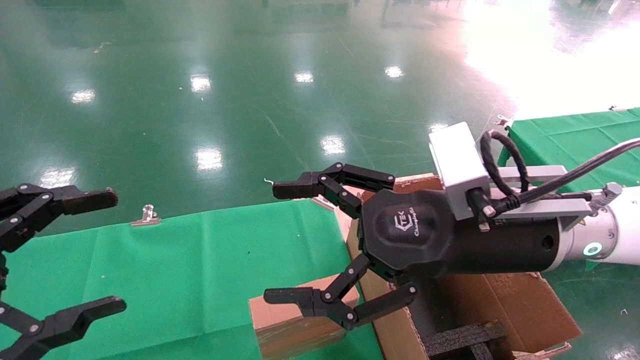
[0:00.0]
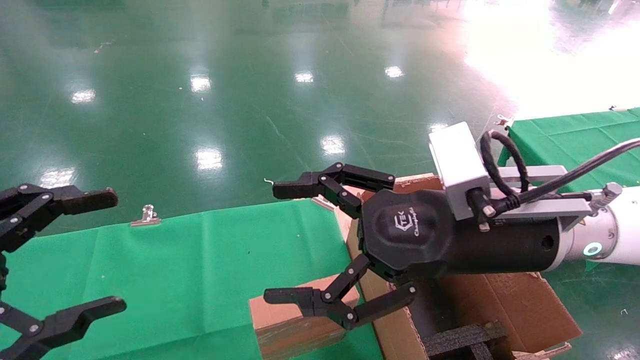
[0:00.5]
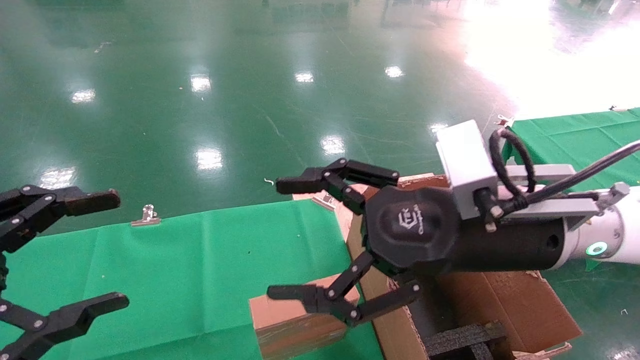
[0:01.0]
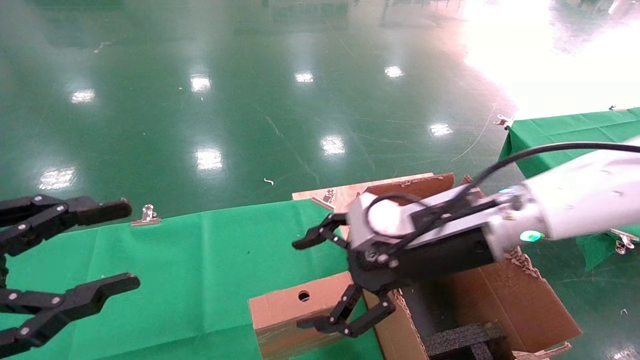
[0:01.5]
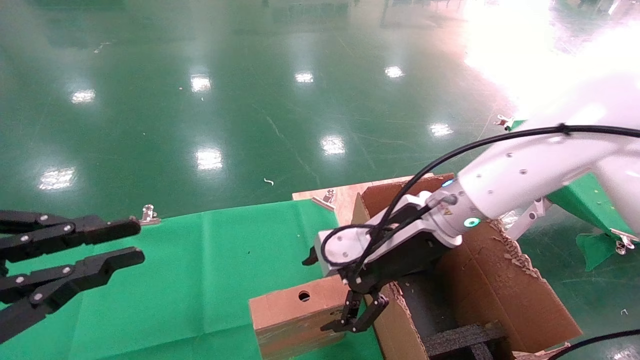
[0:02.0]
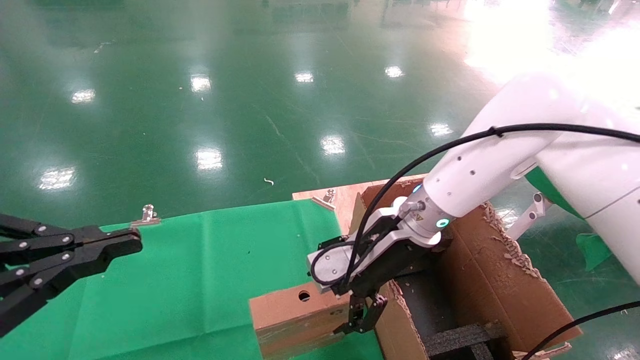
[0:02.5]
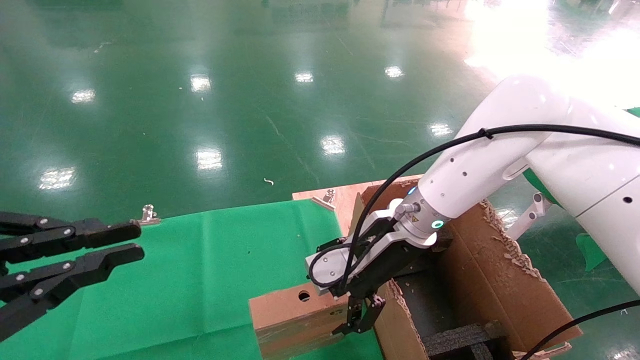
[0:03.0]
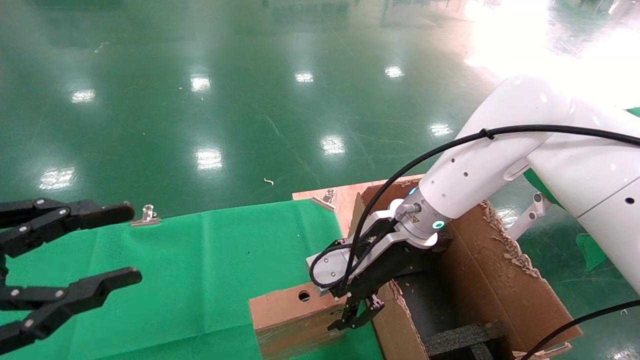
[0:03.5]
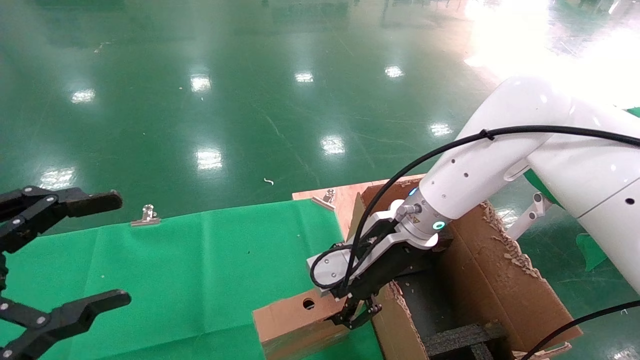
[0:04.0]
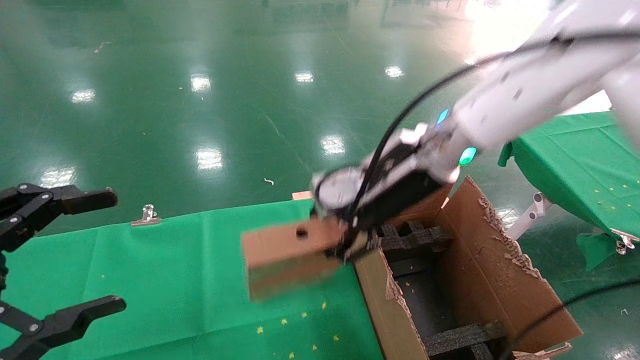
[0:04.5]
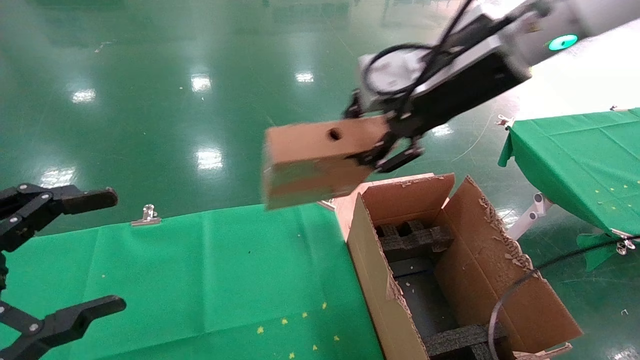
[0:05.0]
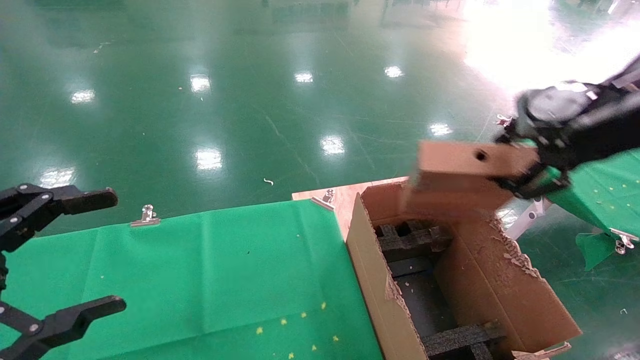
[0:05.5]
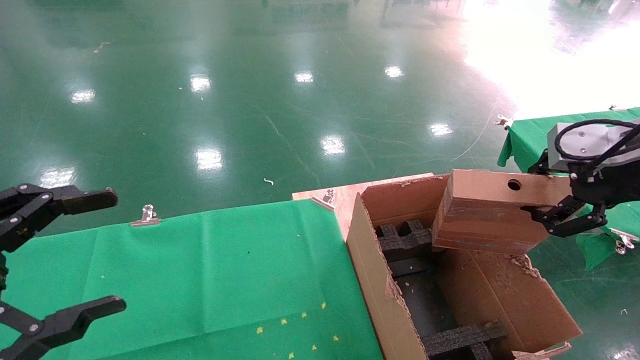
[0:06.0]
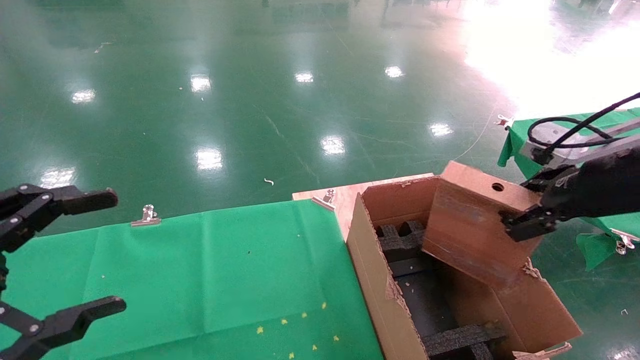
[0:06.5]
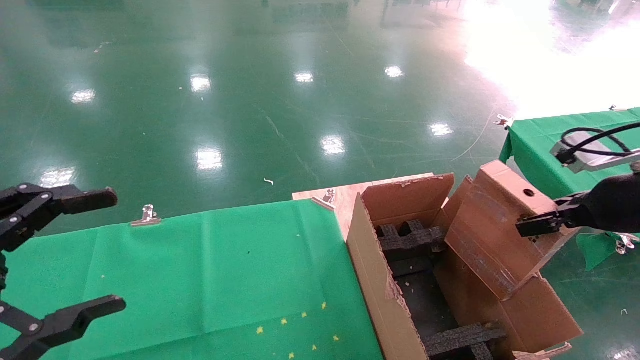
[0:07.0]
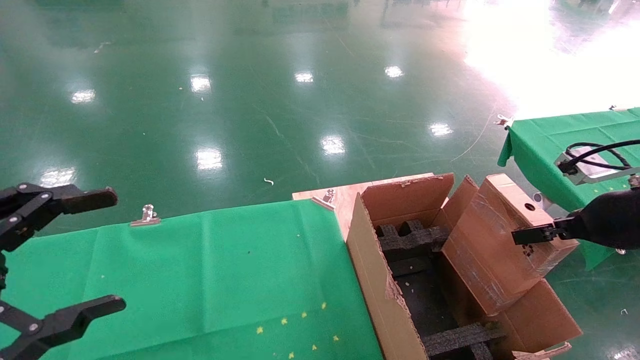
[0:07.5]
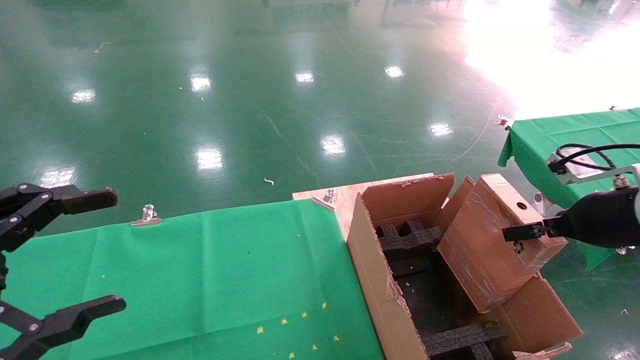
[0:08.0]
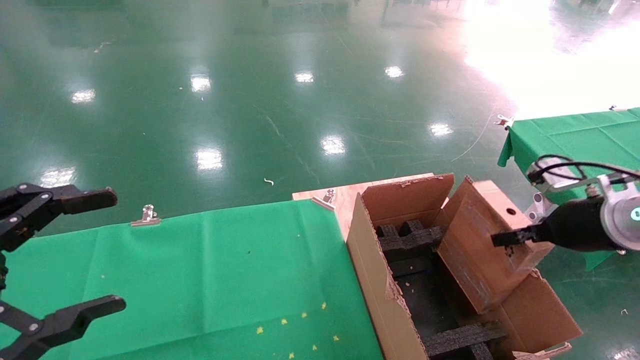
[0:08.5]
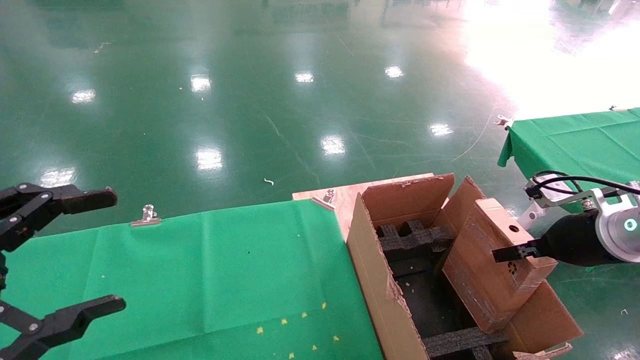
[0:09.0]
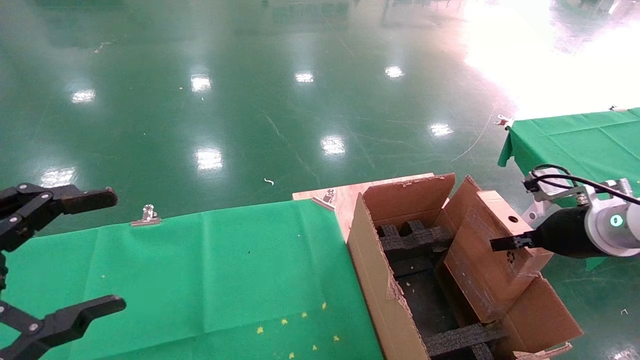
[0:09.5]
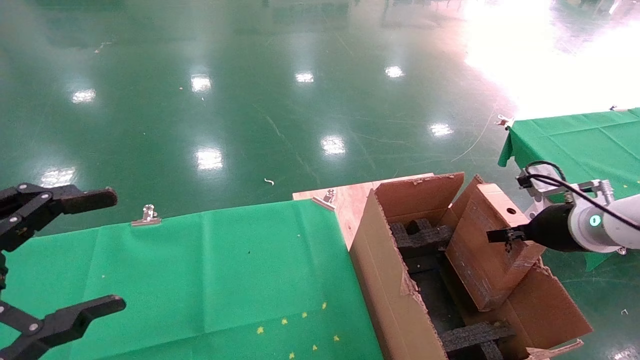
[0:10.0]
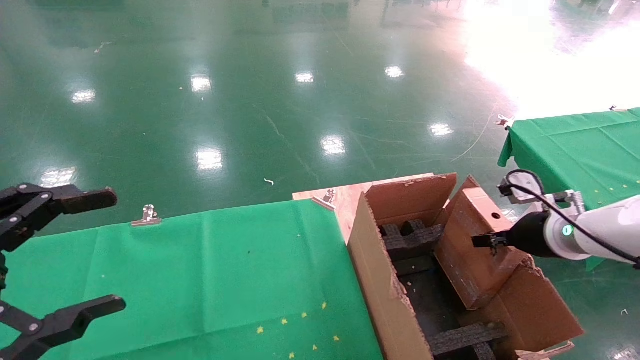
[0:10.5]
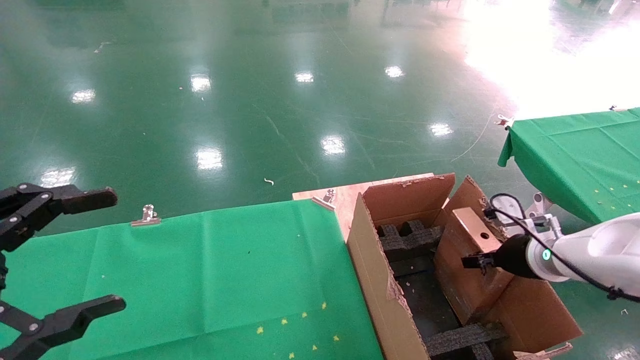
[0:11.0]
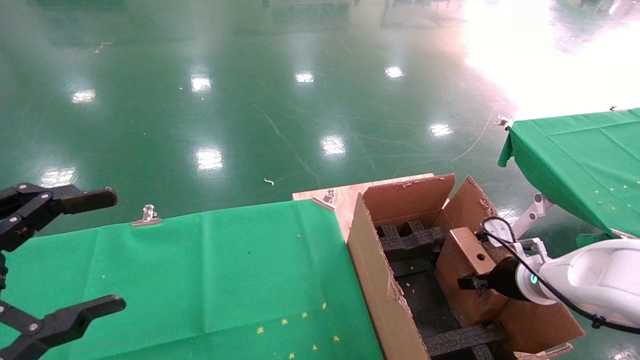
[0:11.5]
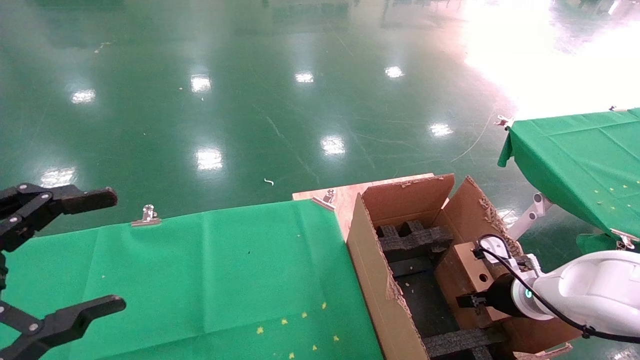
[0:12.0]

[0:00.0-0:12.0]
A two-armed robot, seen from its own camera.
Task of the whole recording: using a robotic arm to pick up a cardboard box and palace it the carton.
Step, 0:01.5 to 0:04.0: Pick up the mouse and the power cord paper box.
0:00.0 to 0:02.0: The left gripper closes its fingers. The right gripper goes about 10 cm forward.
0:02.0 to 0:04.0: The right gripper closes up. The left gripper opens up.
0:04.0 to 0:06.0: The right gripper heads to the right, backward and upward, covering some 30 cm.
0:06.0 to 0:08.0: The right gripper travels downward by about 10 cm.
0:08.0 to 0:10.0: The right gripper shifts approximately 10 cm forward and downward.
0:10.0 to 0:12.0: The right gripper heads downward, covering some 15 cm.

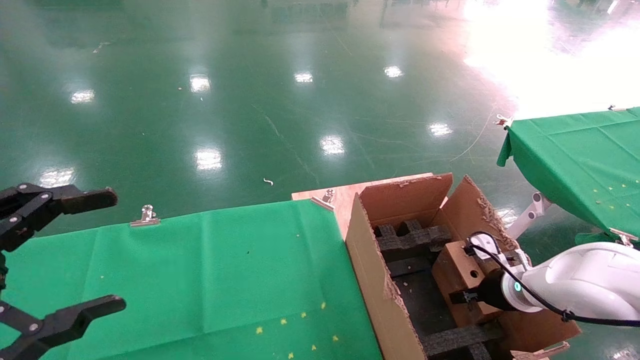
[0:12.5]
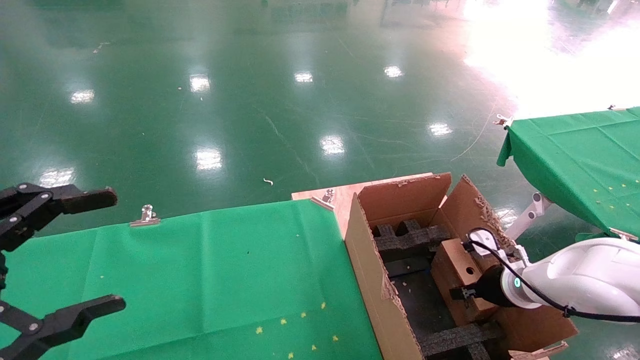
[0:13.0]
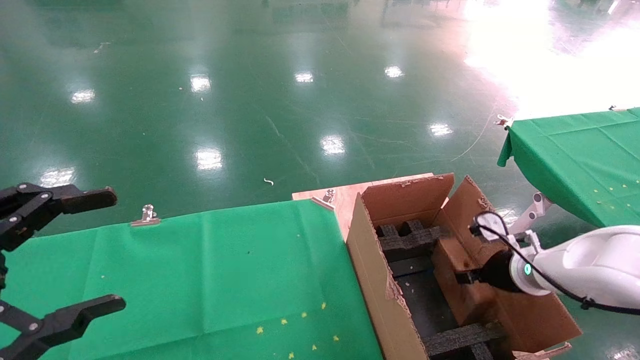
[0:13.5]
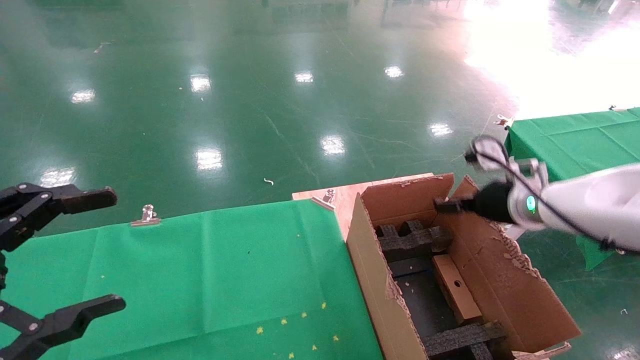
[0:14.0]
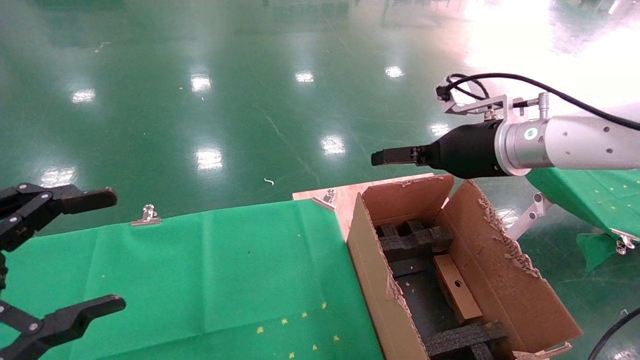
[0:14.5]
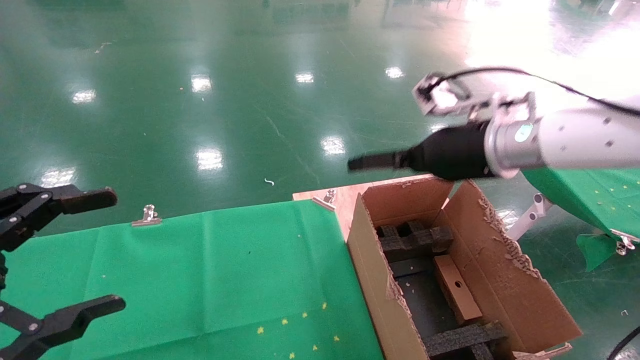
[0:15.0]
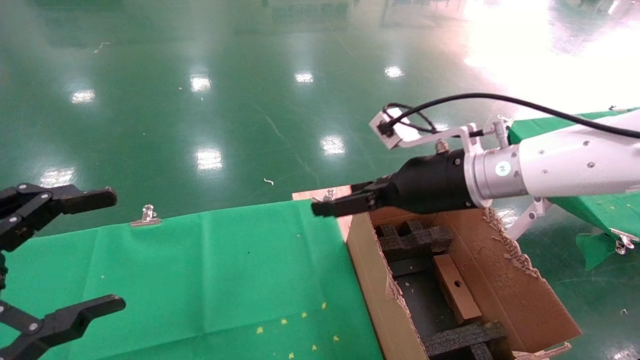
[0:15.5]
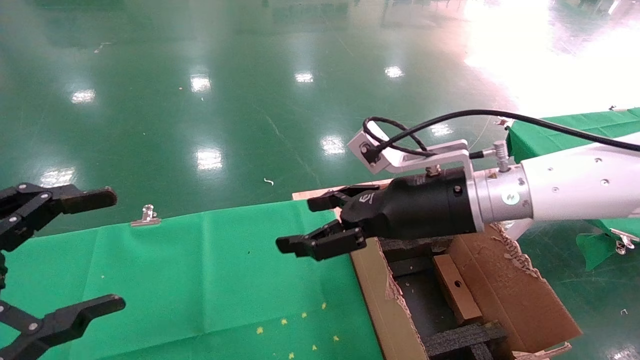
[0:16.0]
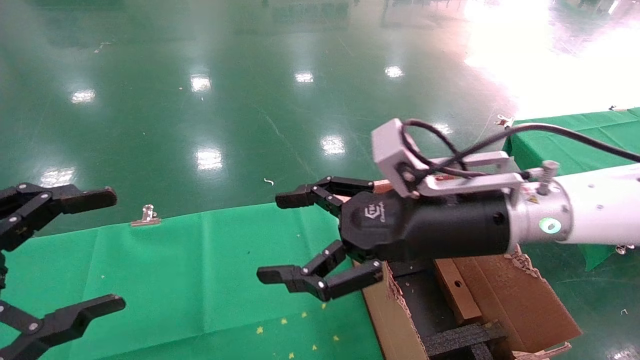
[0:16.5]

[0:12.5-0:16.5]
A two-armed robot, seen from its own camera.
Task of the whole recording: using a robotic arm to pick up a cardboard box and palace it the carton.
0:12.5 to 0:14.5: The right gripper heads upward, covering some 25 cm, and opens its fingers.
0:14.5 to 0:16.5: The right gripper moves to the left and backward, about 15 cm.

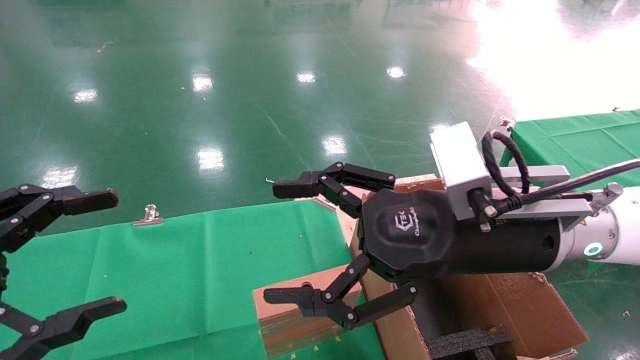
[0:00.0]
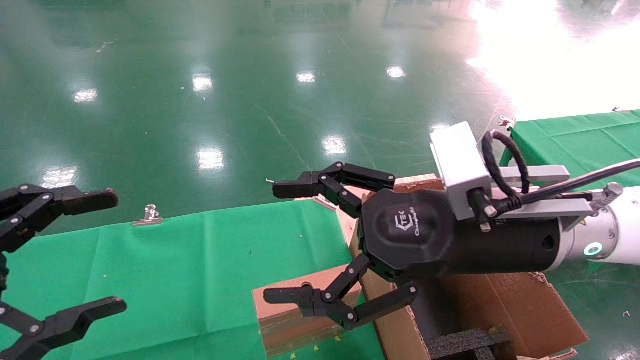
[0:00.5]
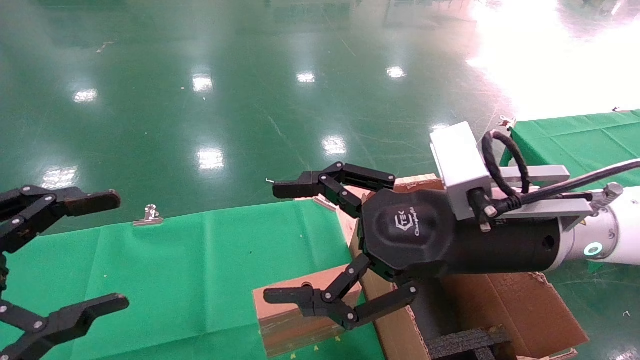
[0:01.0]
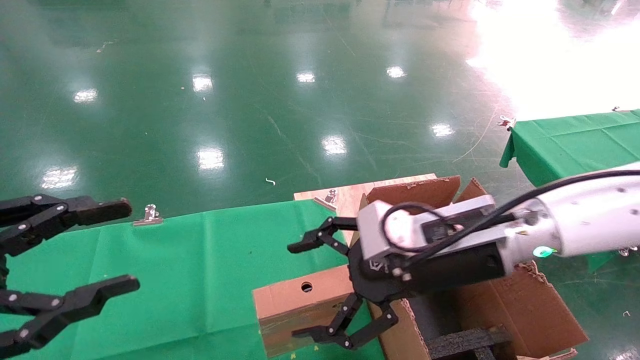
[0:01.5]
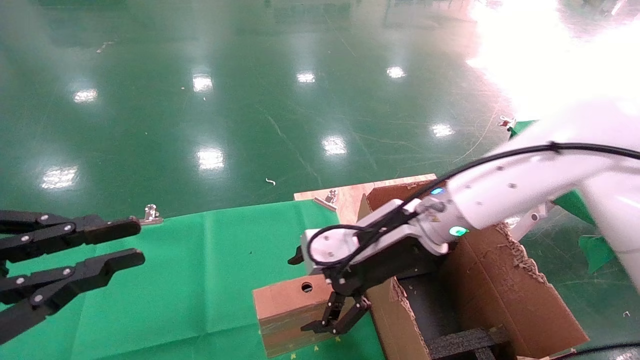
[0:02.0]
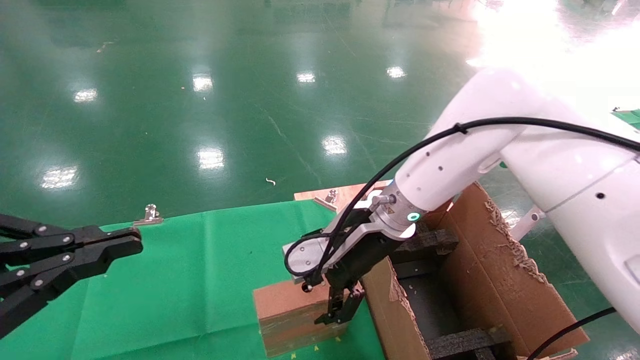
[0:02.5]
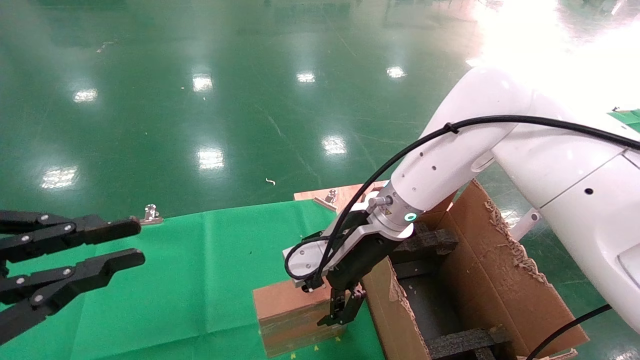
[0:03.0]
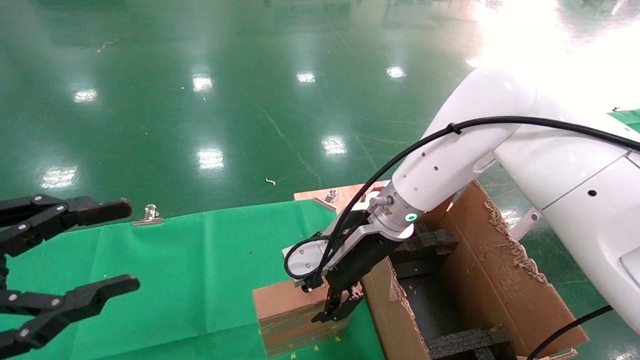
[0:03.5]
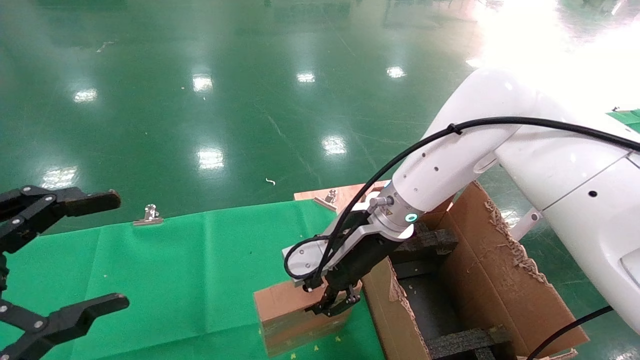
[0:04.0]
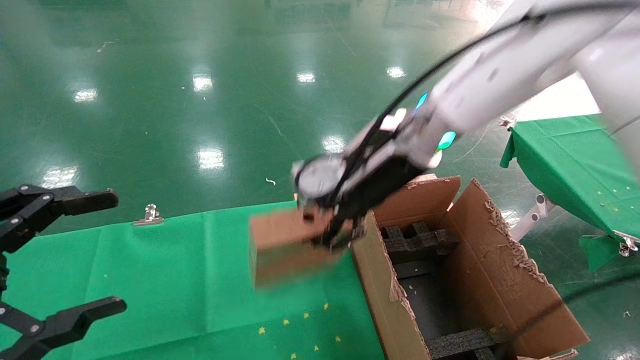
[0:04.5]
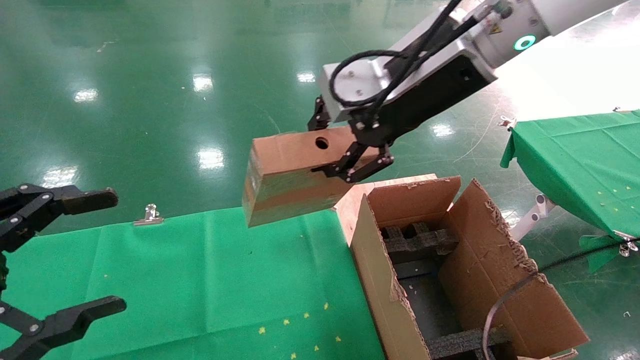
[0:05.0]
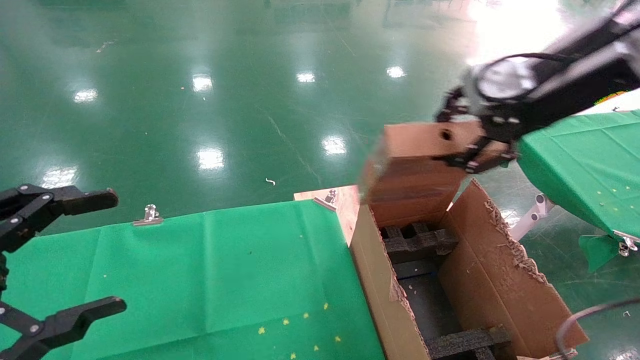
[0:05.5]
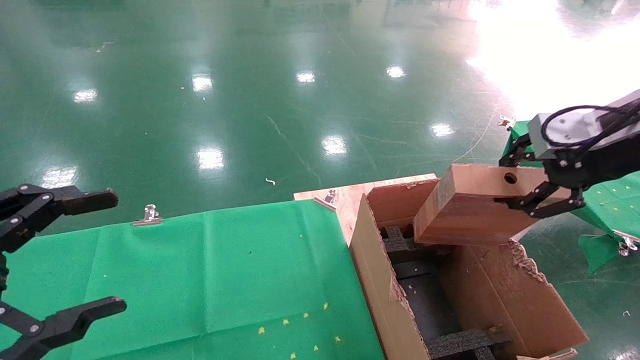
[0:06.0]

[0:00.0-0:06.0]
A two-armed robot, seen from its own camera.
Task of the whole recording: using a robotic arm to pick up a cardboard box and palace it the carton.
Step, 0:02.0 to 0:05.0: Pick up the mouse and the power cord paper box.
0:00.0 to 0:02.0: The left gripper closes, while the right gripper shifts some 10 cm forward.
0:02.0 to 0:04.0: The right gripper closes its fingers, while the left gripper opens.
0:04.0 to 0:06.0: The right gripper goes roughly 35 cm to the right, upward and backward.
